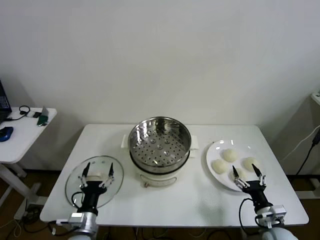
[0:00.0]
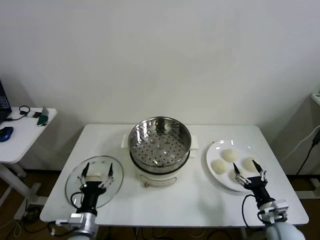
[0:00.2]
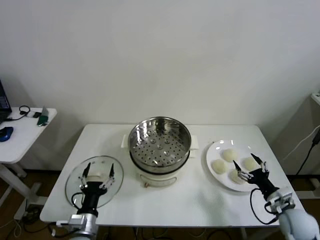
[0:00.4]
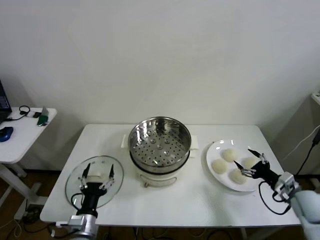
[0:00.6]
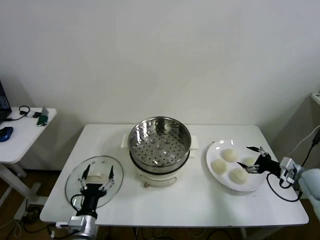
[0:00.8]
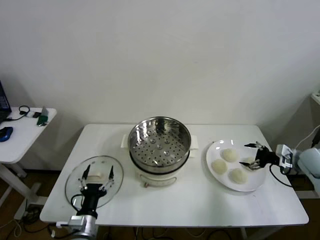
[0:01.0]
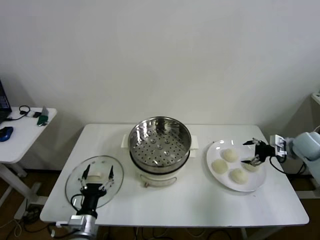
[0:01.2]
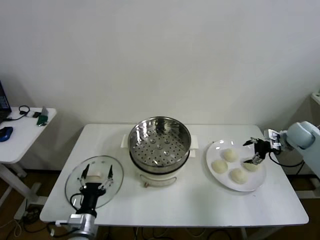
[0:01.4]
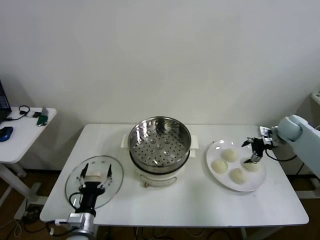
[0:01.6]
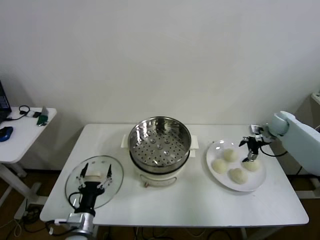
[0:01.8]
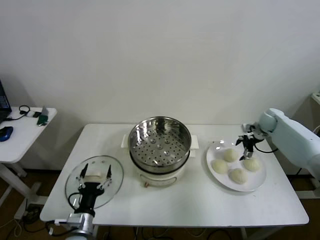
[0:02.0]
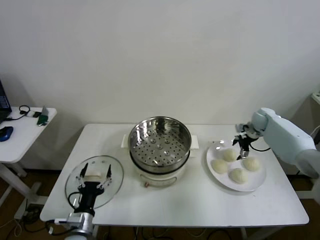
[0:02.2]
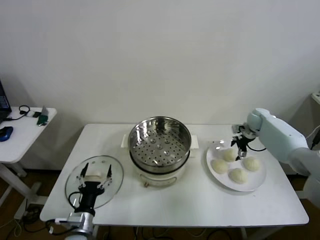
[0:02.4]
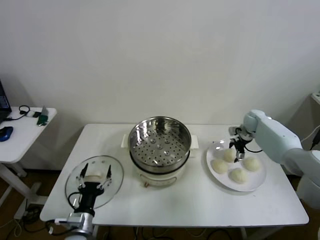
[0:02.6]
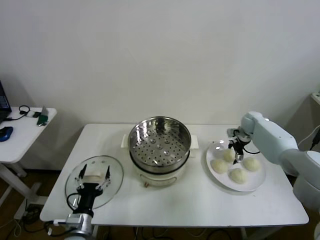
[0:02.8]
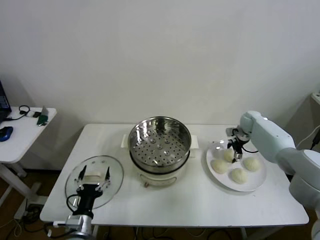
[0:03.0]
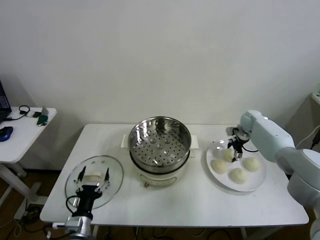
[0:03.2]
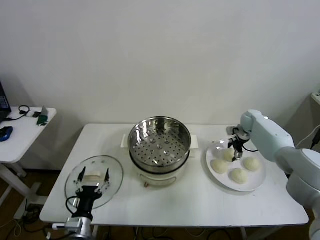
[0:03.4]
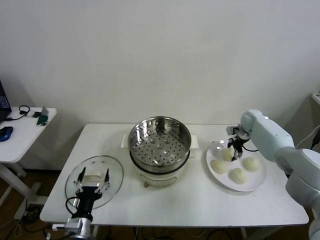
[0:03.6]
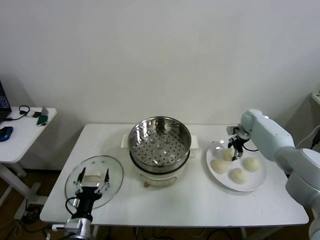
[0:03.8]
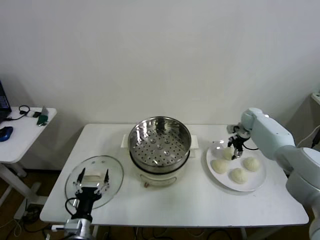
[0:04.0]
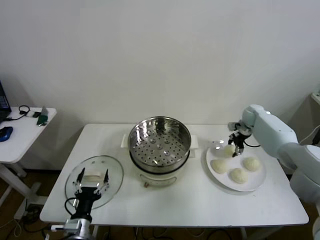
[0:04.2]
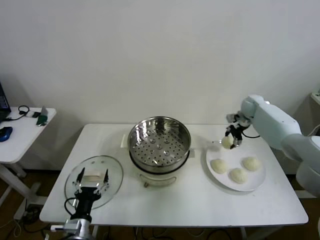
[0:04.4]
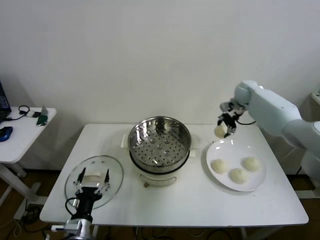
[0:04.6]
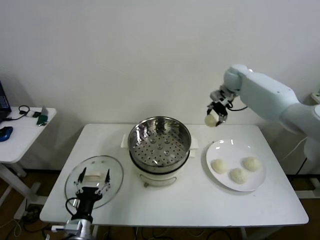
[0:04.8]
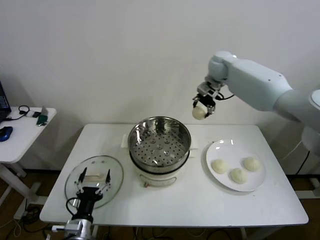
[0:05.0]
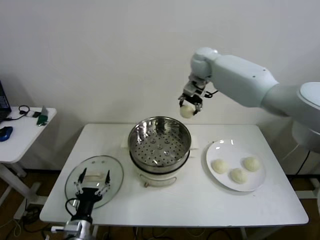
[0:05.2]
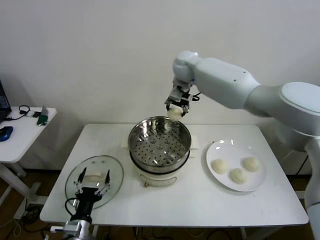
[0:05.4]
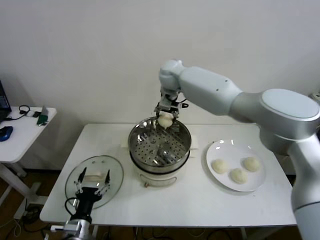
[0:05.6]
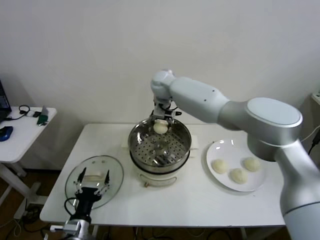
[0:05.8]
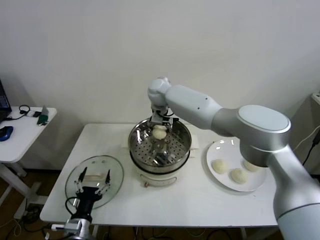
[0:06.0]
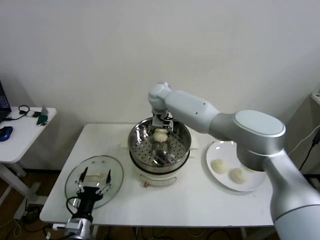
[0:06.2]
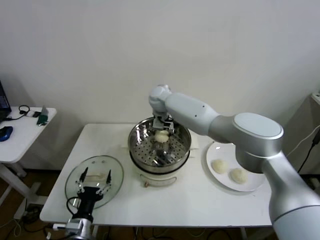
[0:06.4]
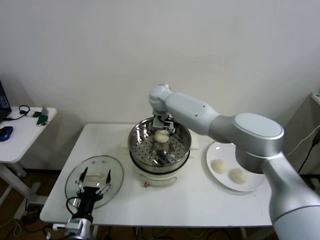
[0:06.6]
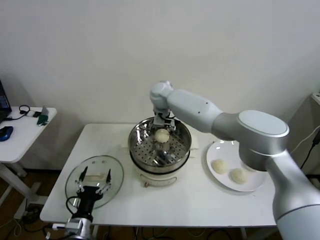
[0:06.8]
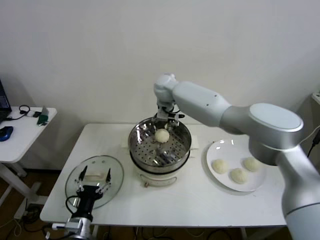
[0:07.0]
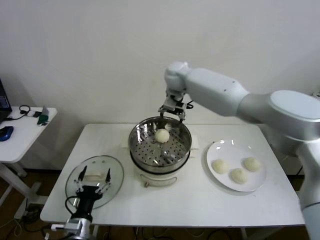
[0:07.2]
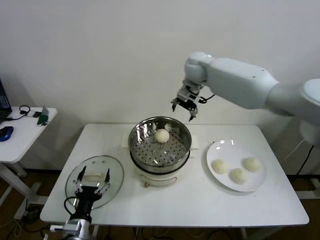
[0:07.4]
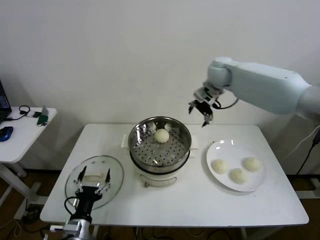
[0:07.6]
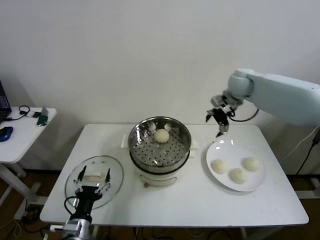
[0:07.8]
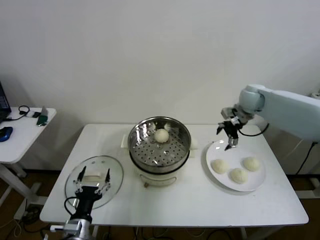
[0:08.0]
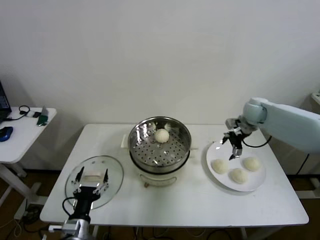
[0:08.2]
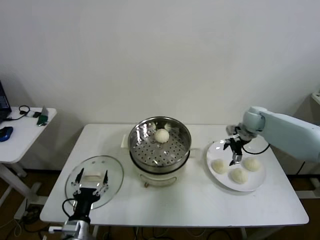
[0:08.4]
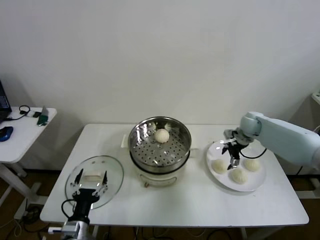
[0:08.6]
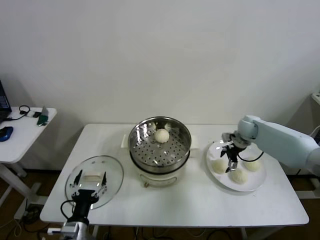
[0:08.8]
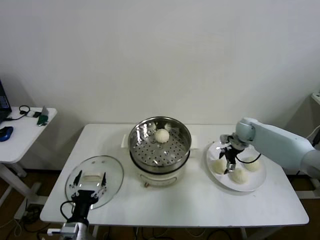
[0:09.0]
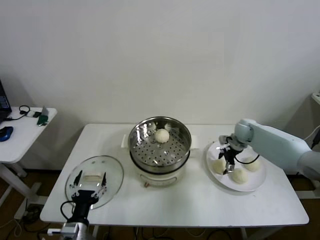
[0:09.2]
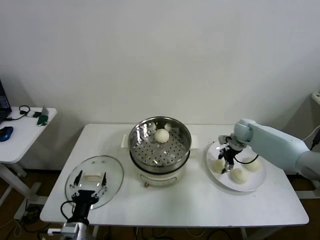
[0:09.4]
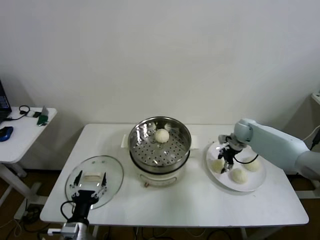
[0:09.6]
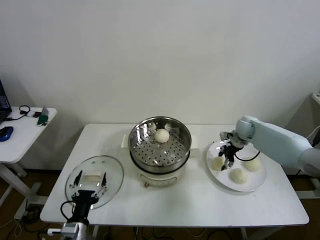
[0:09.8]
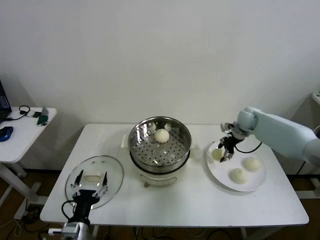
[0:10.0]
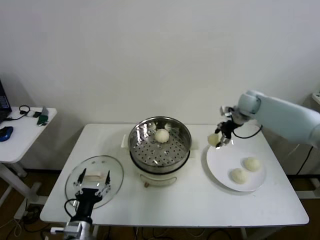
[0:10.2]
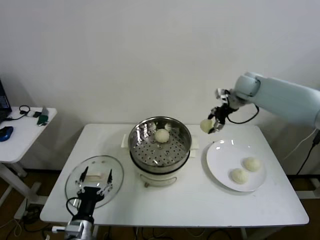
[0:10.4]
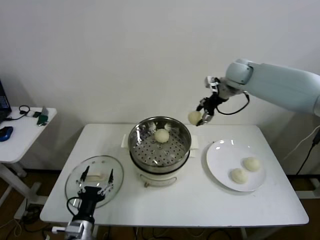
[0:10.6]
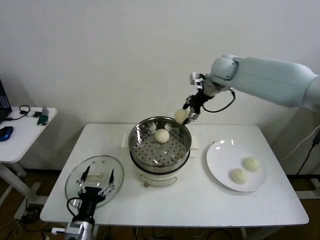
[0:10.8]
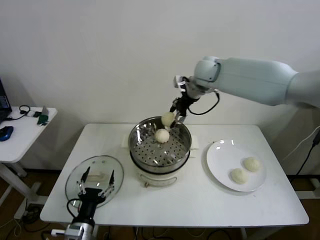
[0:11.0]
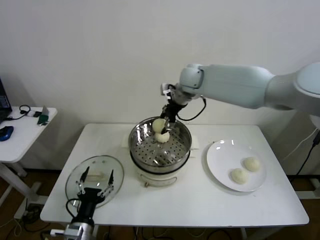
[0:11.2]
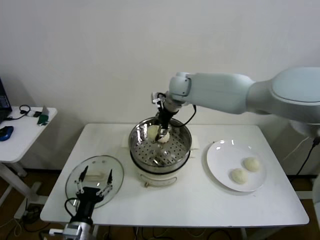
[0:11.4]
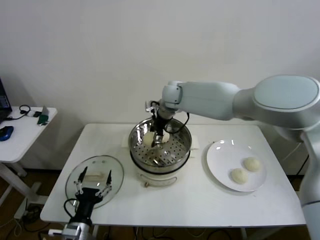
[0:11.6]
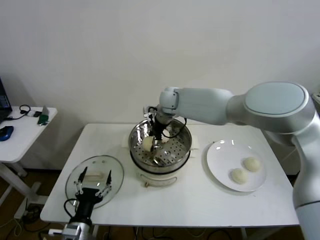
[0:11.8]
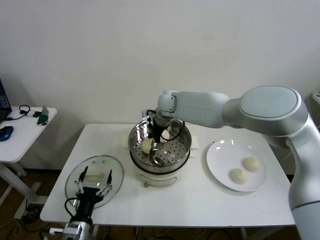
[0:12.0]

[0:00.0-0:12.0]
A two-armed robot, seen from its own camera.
Step, 0.0 to 3.2 s: Grasp the baozi in the plate with right gripper.
Step, 3.4 to 6.6 s: Place the baozi on the steamer with right gripper.
Step, 7.0 to 9.4 s: Grasp the baozi in the plate with right gripper.
1.6 to 3.0 s: The right gripper travels to the left, forward and downward by roughly 15 cm.
3.0 to 4.4 s: The right gripper heads upward, covering about 10 cm, and closes.
4.4 to 6.0 s: The right gripper shifts approximately 35 cm to the left.
6.0 to 7.6 s: The right gripper travels to the right by roughly 25 cm, and opens its fingers.
7.6 to 9.0 s: The right gripper moves downward and to the right, roughly 25 cm.
9.0 to 10.4 s: The right gripper moves upward, roughly 20 cm, and closes up.
10.4 to 12.0 s: The right gripper shifts some 25 cm to the left, and opens.

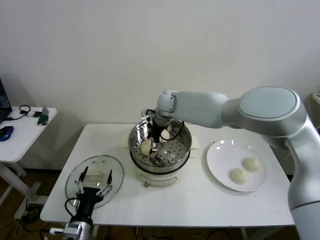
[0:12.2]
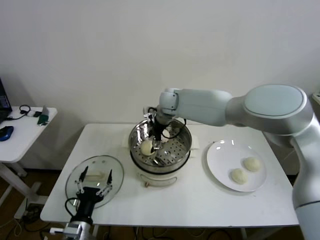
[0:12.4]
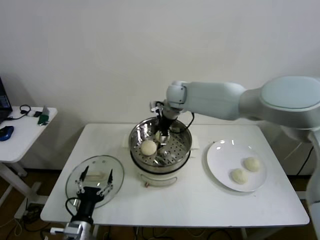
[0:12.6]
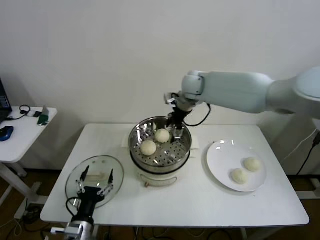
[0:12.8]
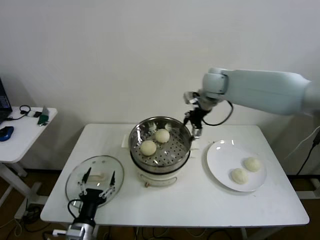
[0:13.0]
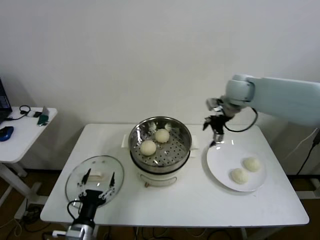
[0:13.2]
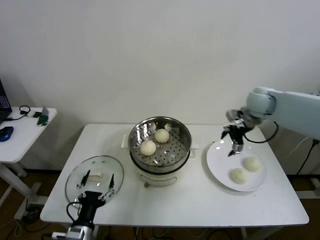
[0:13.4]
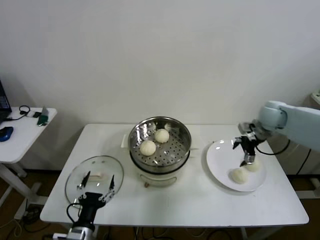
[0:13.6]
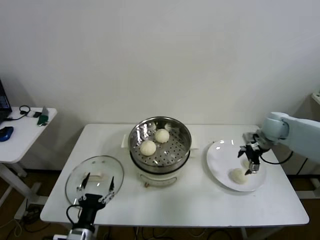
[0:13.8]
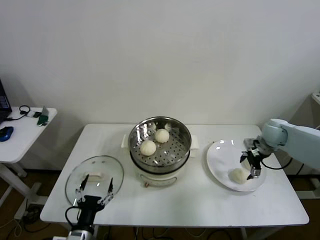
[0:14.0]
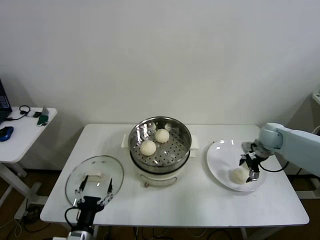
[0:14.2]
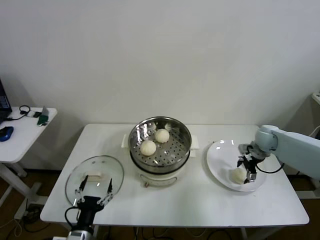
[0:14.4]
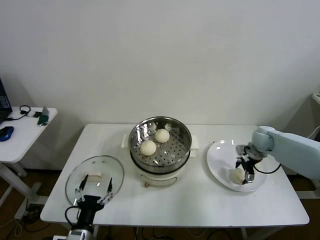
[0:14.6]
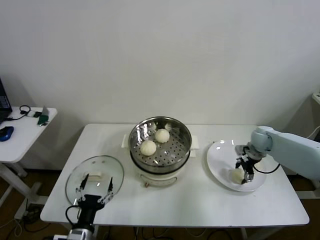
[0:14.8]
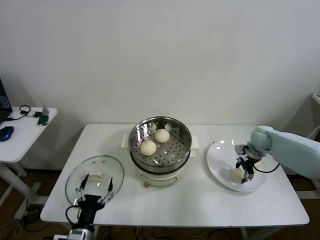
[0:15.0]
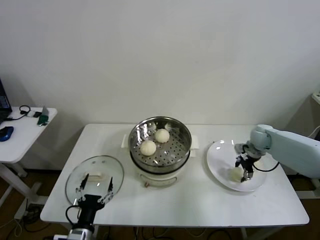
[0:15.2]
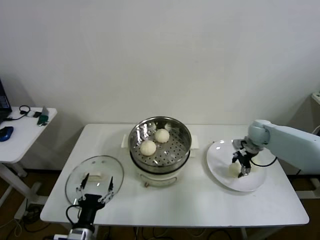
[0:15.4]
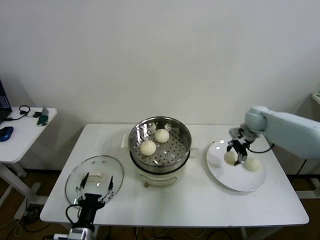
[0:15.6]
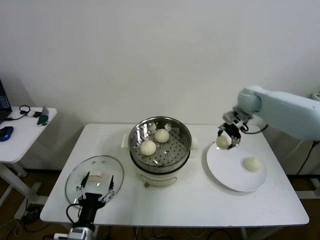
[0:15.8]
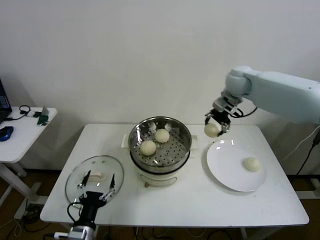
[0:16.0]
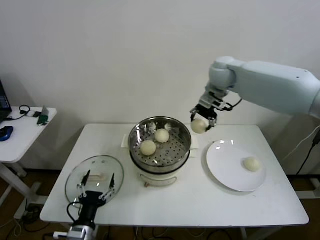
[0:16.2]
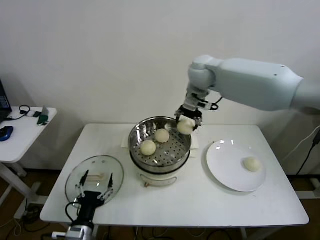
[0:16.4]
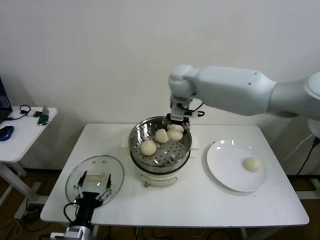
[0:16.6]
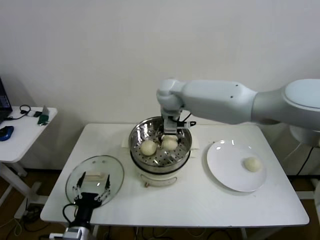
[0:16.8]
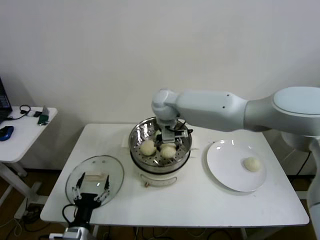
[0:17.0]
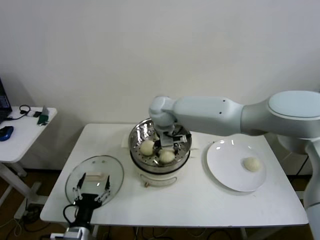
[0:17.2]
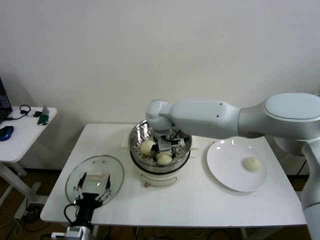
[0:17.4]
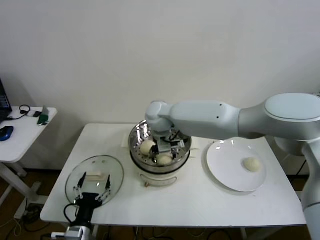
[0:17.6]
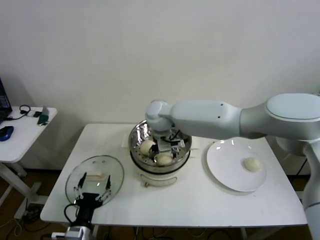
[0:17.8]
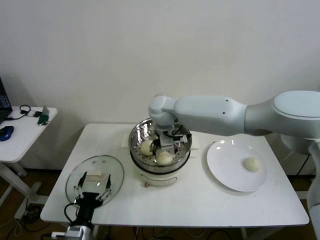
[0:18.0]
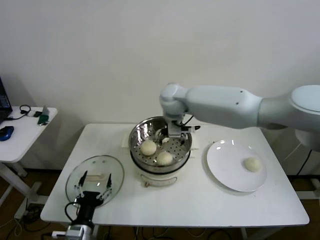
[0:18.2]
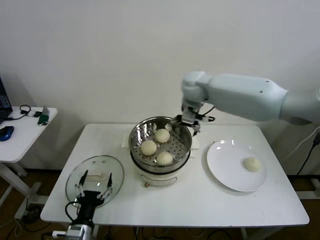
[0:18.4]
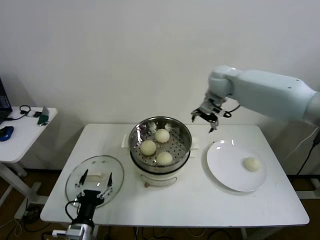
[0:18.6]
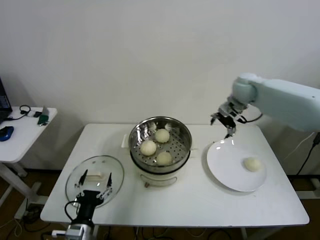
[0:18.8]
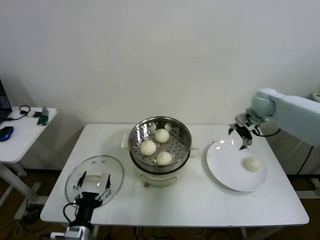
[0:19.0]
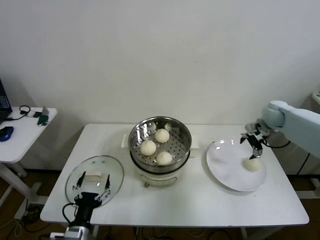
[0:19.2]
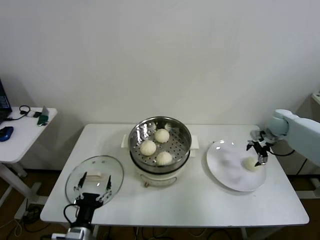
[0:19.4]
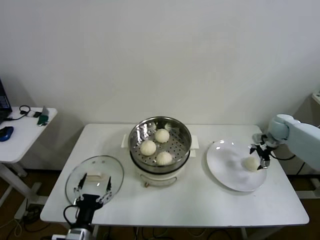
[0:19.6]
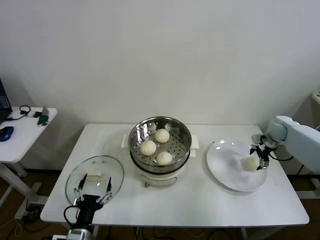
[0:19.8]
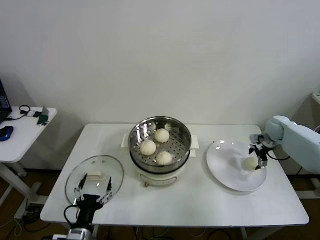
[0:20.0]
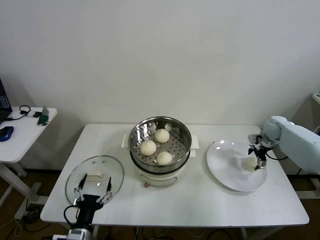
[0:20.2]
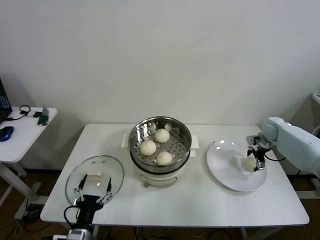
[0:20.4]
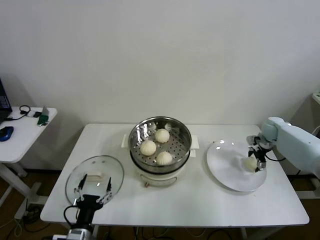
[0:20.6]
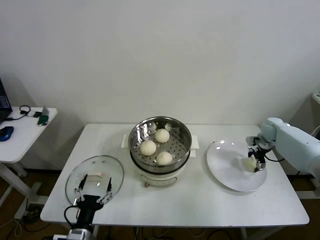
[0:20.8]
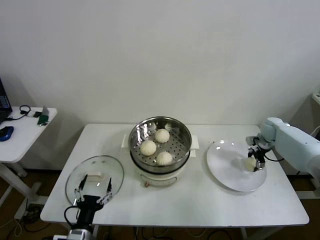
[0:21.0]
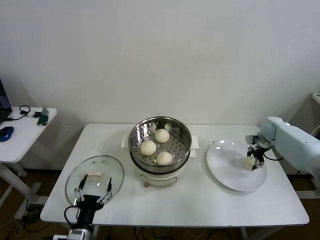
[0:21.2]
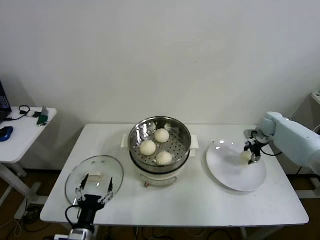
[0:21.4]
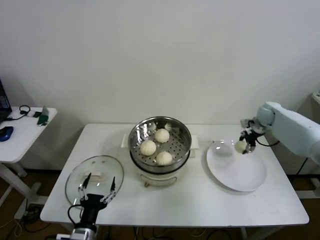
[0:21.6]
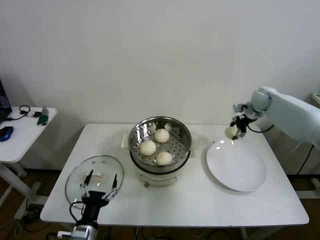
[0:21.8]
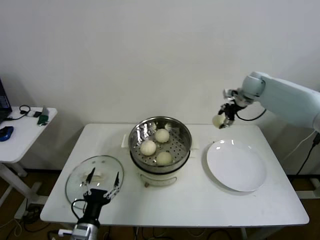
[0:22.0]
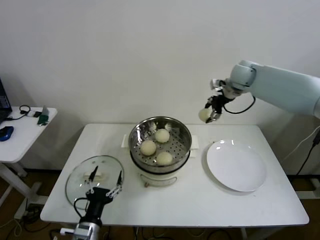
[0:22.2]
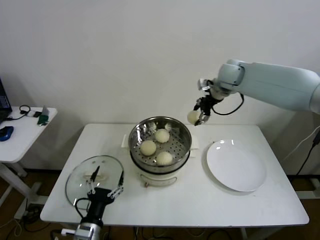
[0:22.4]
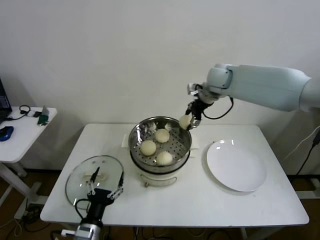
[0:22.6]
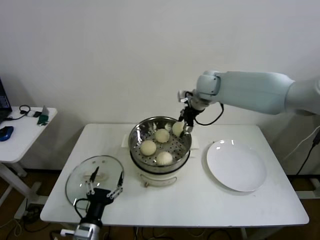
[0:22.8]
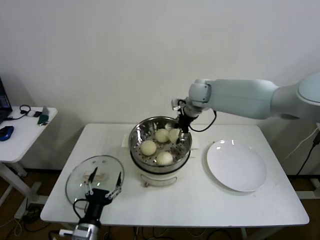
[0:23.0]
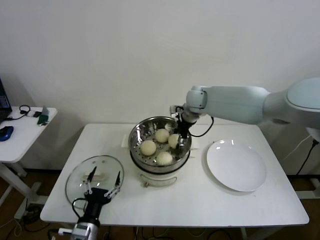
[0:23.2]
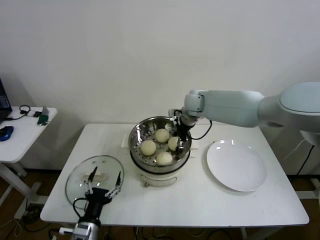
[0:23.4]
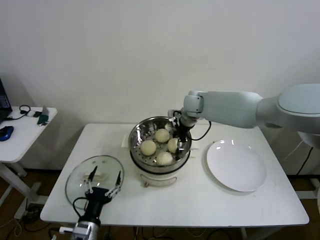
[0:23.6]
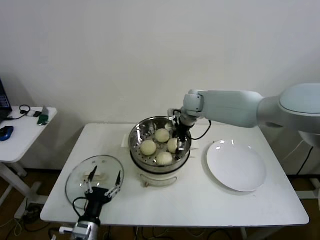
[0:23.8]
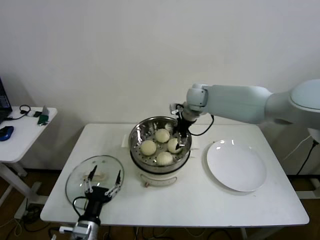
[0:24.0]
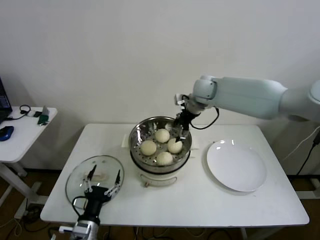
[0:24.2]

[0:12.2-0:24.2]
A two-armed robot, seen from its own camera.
Step, 12.6 to 15.0 s: Grasp the baozi in the plate with right gripper.
Step, 15.2 to 17.8 s: Place the baozi on the steamer with right gripper.
Step, 18.0 to 21.0 s: Grasp the baozi in the plate with right gripper.
Step, 21.2 to 24.0 s: Place the baozi on the steamer with right gripper.
12.2 to 13.8 s: The right gripper moves to the right, roughly 40 cm.
13.8 to 15.2 s: The right gripper heads downward, covering roughly 10 cm, and closes its fingers.
15.2 to 16.6 s: The right gripper travels to the left and upward by some 40 cm.
16.6 to 18.2 s: The right gripper opens its fingers.
18.2 to 19.8 s: The right gripper is displaced to the right by about 40 cm.
19.8 to 21.2 s: The right gripper closes its fingers.
21.2 to 22.6 s: The right gripper heads to the left and upward, covering about 35 cm.
22.6 to 24.2 s: The right gripper opens its fingers.
